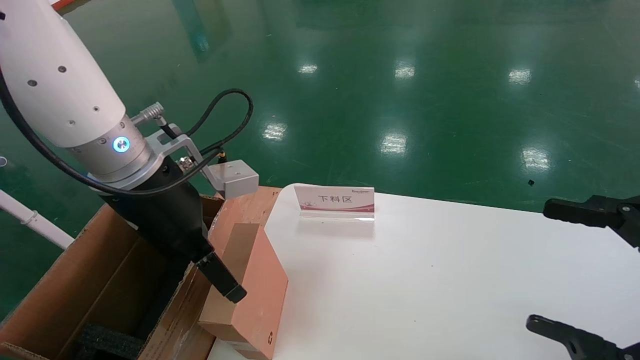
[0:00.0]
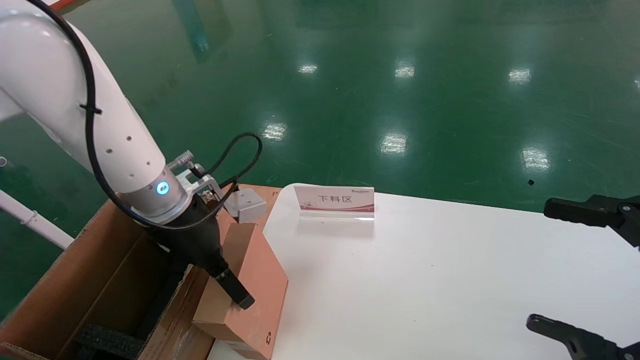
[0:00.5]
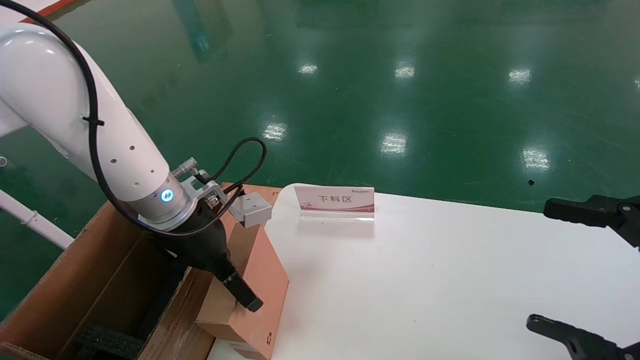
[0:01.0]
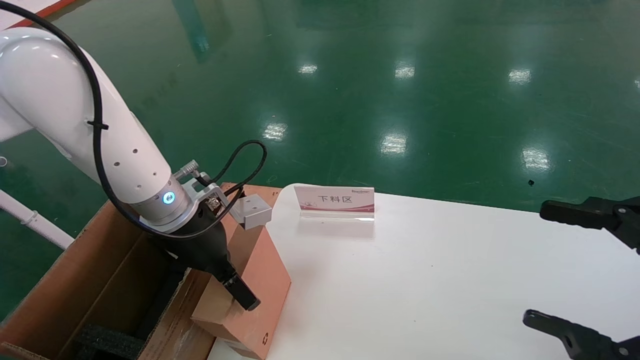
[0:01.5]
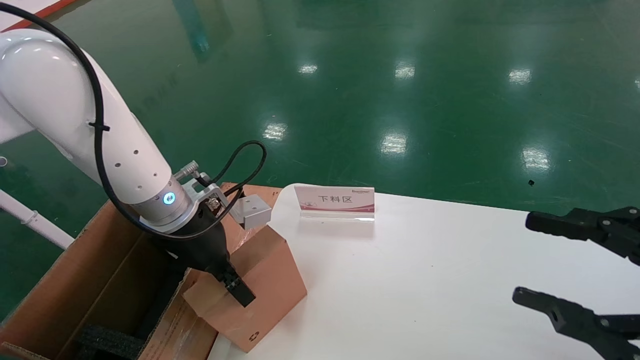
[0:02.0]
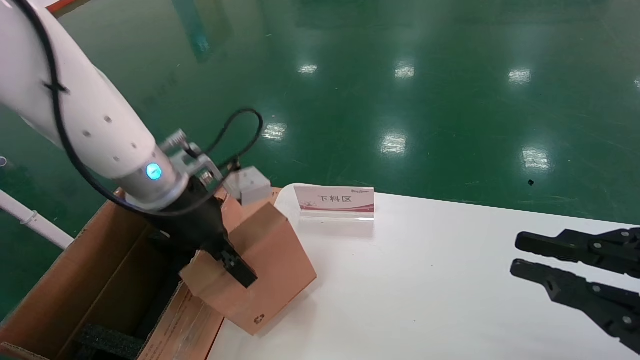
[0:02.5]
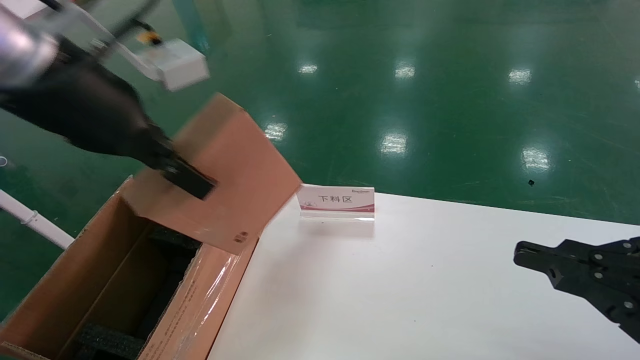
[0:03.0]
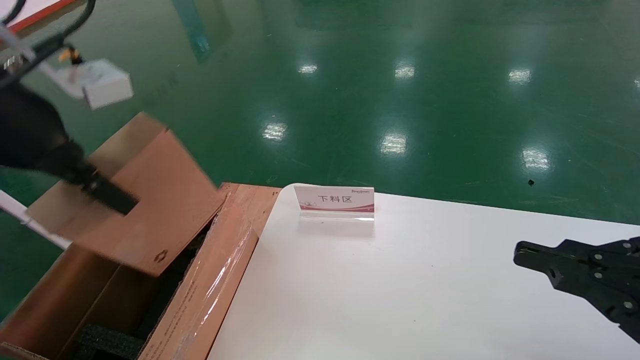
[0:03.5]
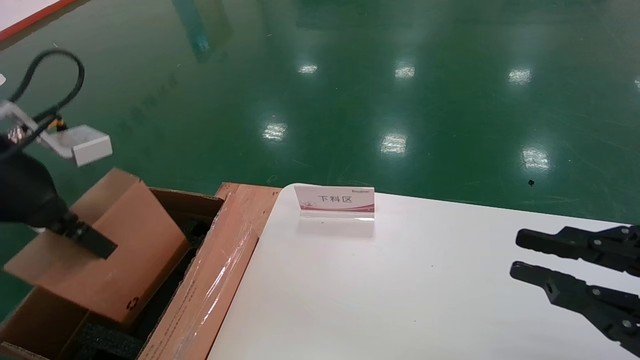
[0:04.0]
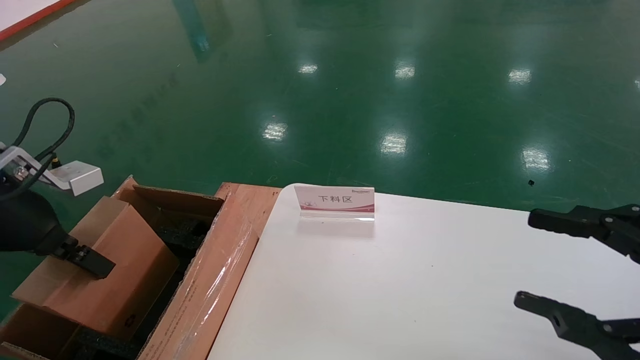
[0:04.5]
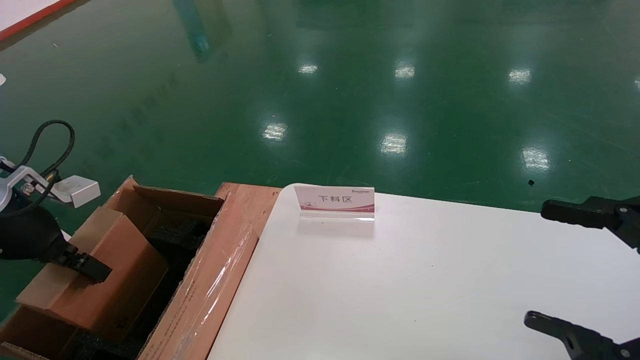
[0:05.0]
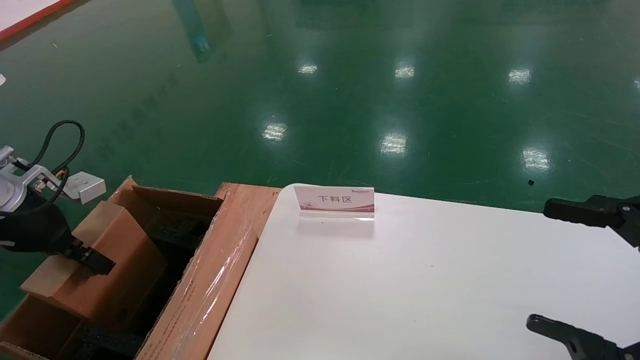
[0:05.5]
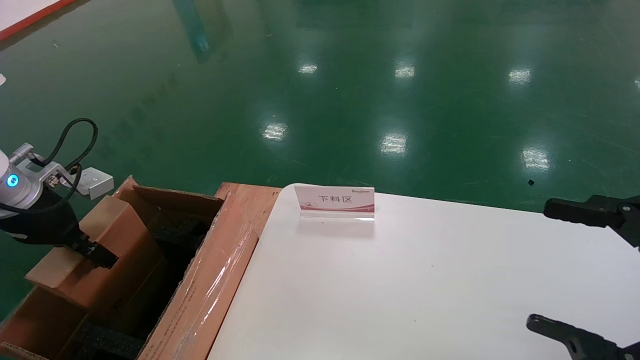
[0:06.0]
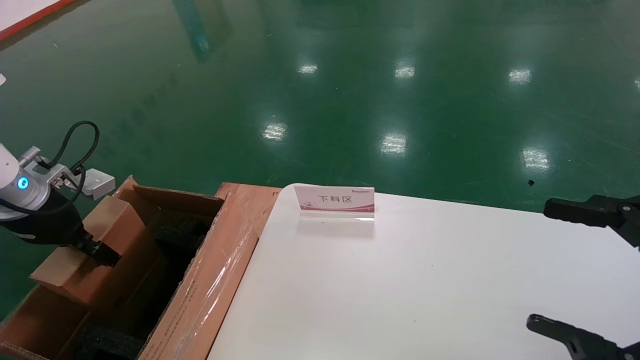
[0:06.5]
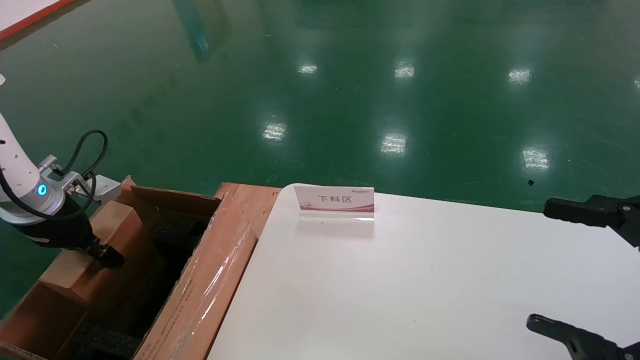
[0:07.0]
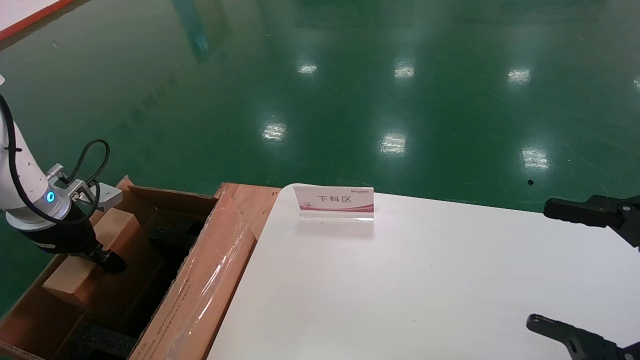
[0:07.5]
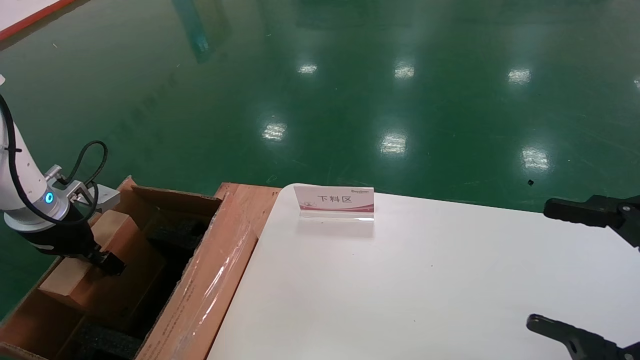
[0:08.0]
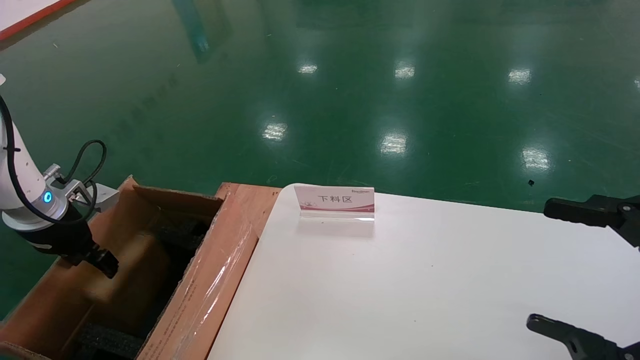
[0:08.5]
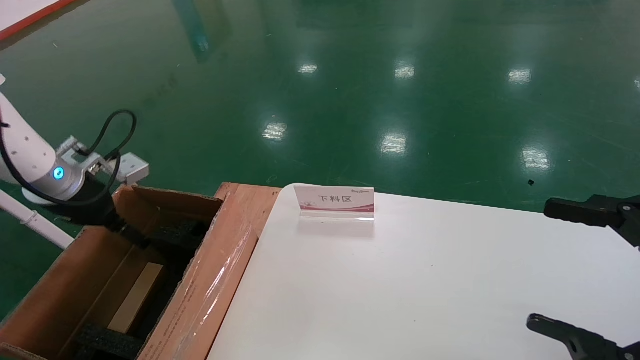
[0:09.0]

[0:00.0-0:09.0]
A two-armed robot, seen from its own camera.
Task of the whole recording: pick up the small cardboard box and load it into the large cardboard box.
Step, 0:00.0 to 0:02.5: Pick up the mouse and power cord box.
Step, 0:03.0 to 0:08.5: Place the mouse and power cord box into the case.
0:00.0 to 0:02.0: The left gripper is displaced downward by about 5 cm, and closes.
0:02.0 to 0:04.5: The left gripper moves to the left and backward, about 20 cm, and closes up; the right gripper closes, then opens again.
0:04.5 to 0:07.0: The right gripper opens, while the left gripper shifts about 10 cm forward, downward and to the left.
0:07.0 to 0:09.0: The left gripper changes place by some 5 cm, and opens.

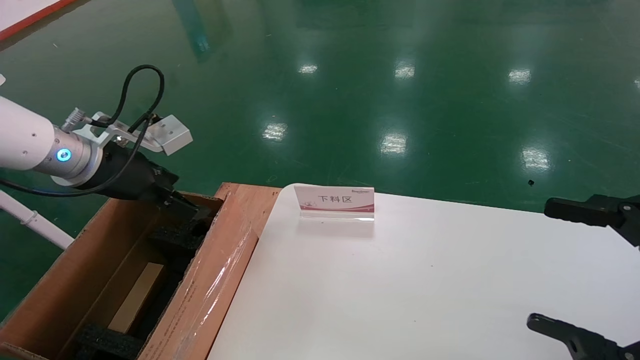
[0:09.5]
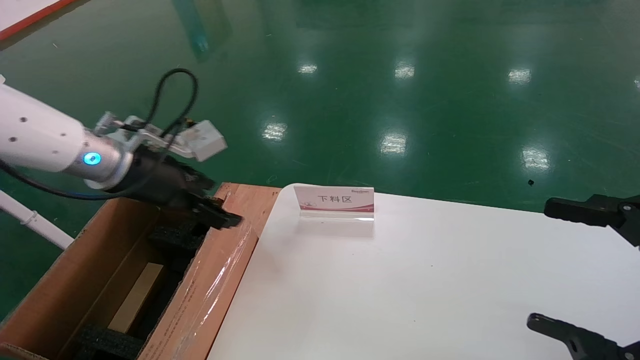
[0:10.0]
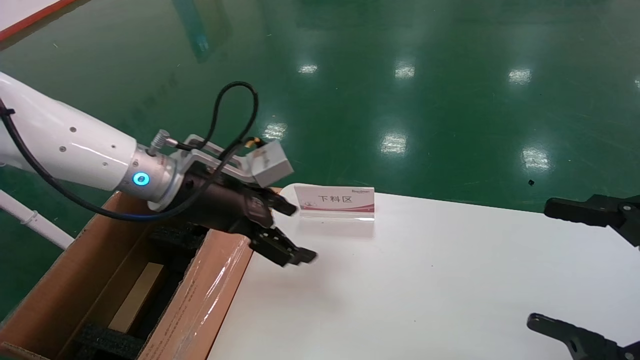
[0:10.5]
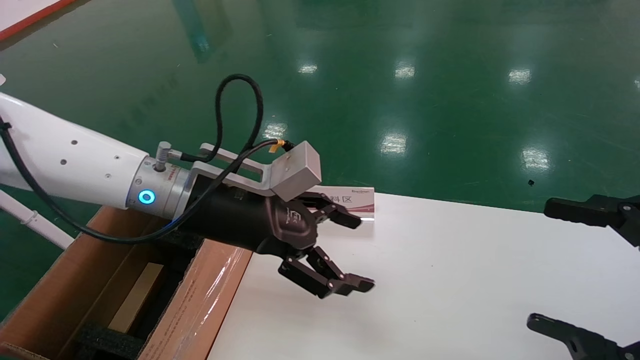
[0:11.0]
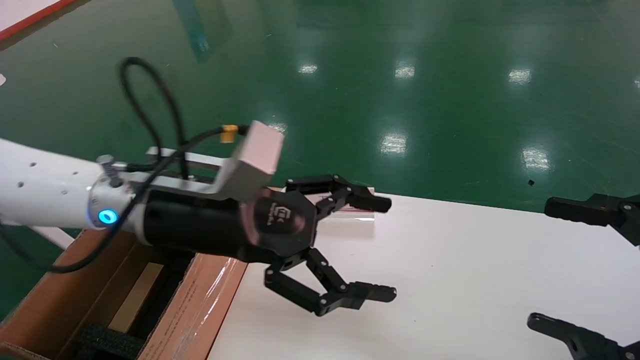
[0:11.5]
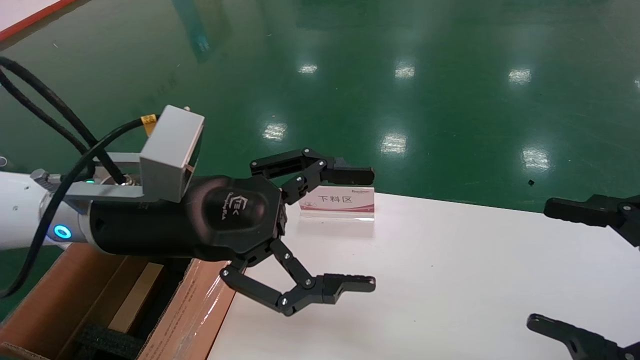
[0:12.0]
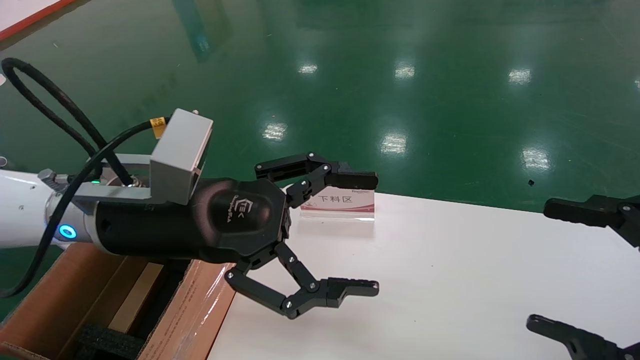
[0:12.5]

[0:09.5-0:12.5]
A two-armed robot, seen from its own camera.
Task of the whole recording: pick up the small cardboard box and load it into the large cardboard box.
0:09.5 to 0:11.0: The left gripper goes some 20 cm to the right.
0:11.0 to 0:12.5: The left gripper moves backward, roughly 5 cm.
